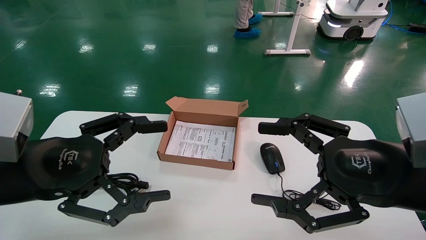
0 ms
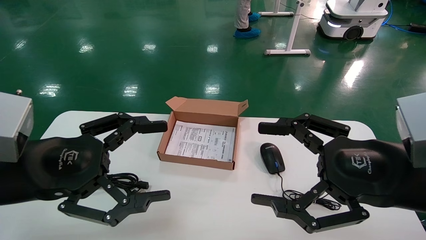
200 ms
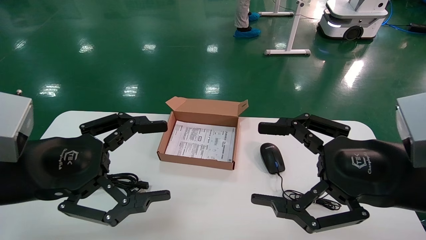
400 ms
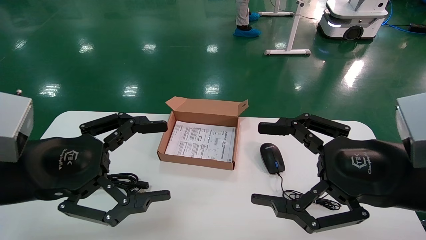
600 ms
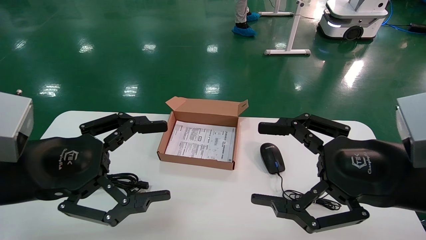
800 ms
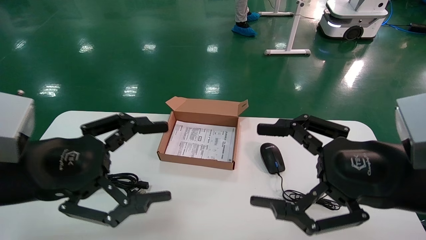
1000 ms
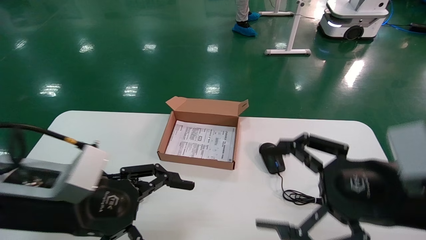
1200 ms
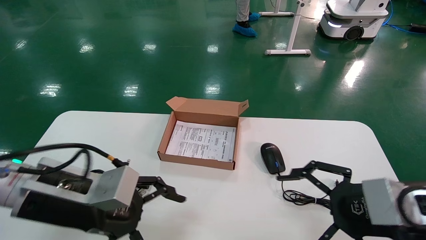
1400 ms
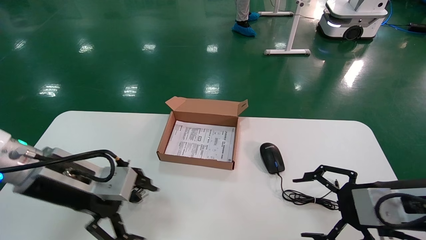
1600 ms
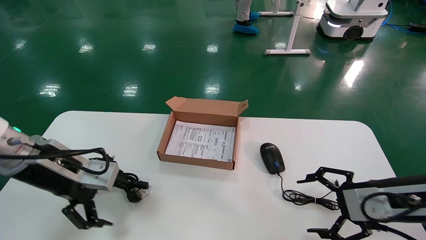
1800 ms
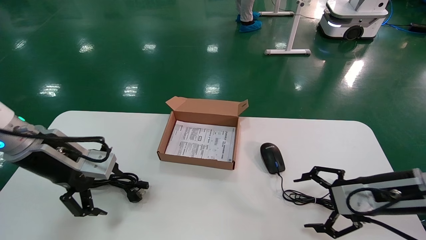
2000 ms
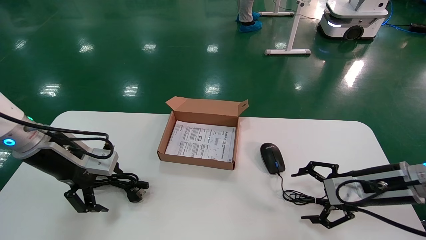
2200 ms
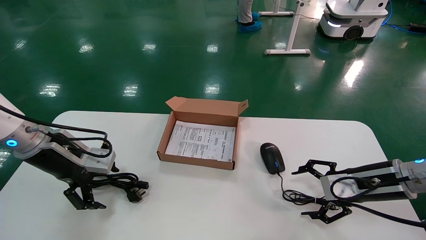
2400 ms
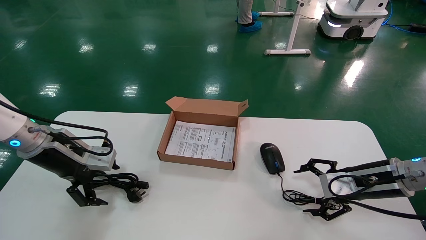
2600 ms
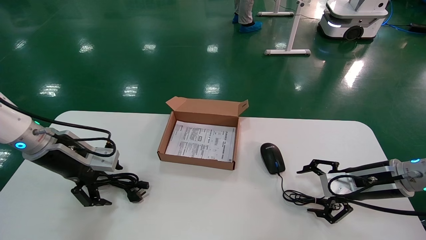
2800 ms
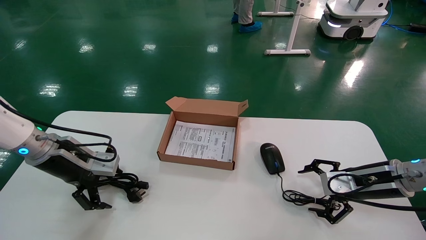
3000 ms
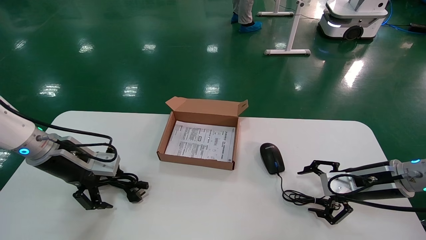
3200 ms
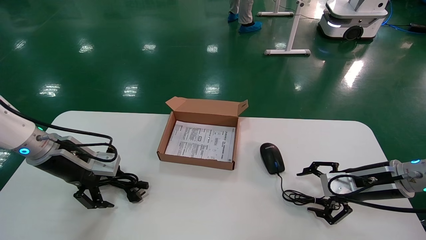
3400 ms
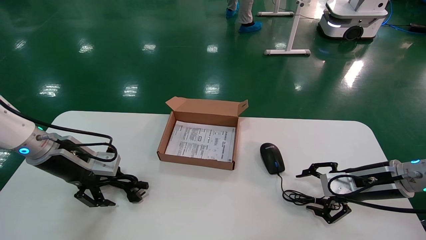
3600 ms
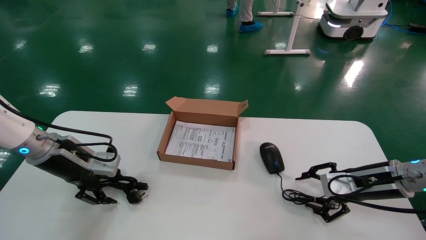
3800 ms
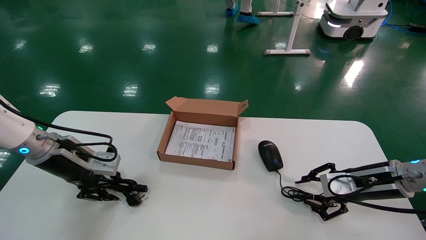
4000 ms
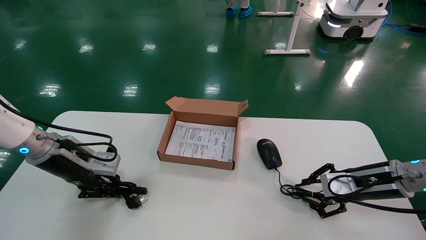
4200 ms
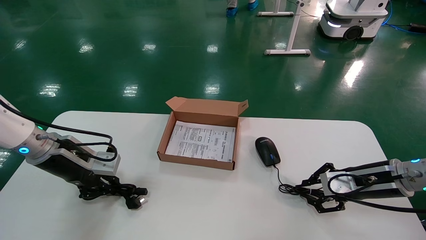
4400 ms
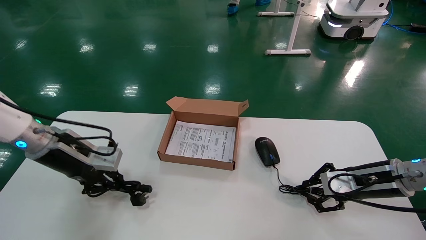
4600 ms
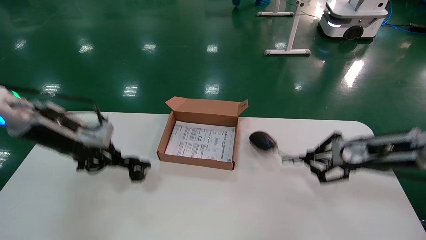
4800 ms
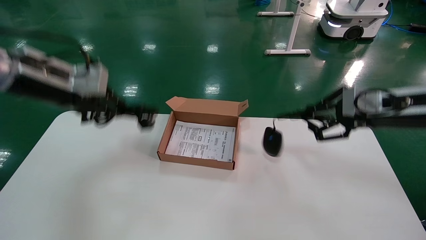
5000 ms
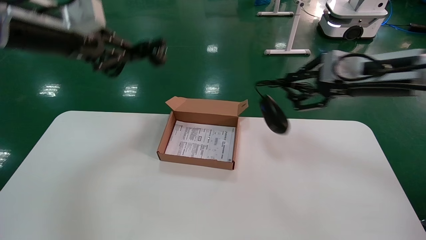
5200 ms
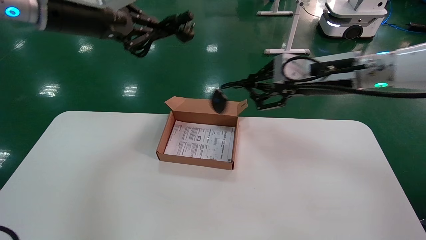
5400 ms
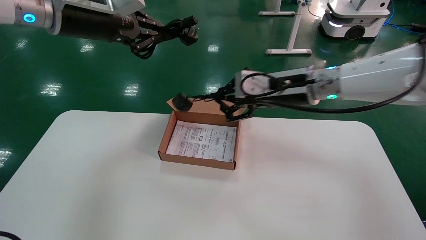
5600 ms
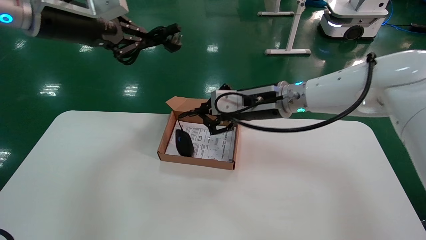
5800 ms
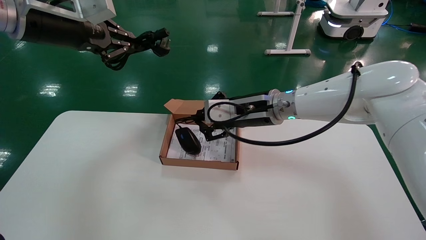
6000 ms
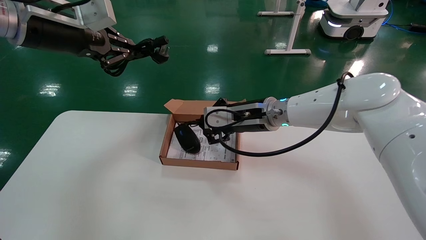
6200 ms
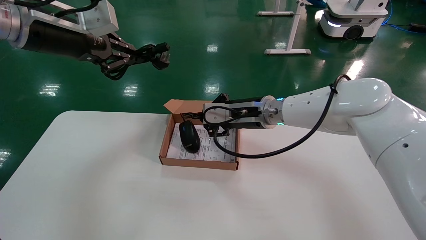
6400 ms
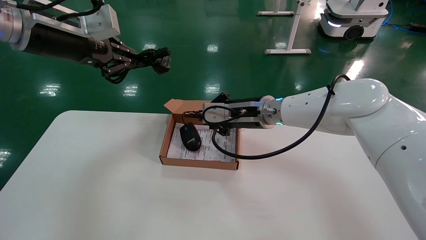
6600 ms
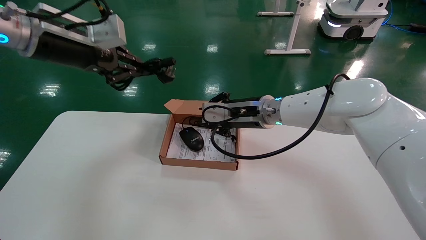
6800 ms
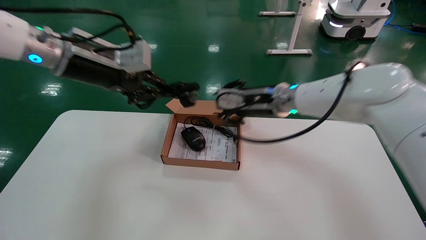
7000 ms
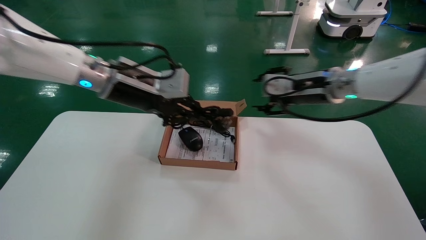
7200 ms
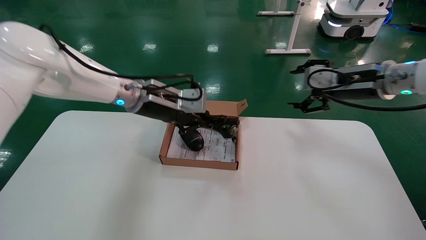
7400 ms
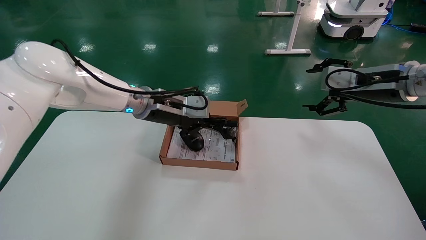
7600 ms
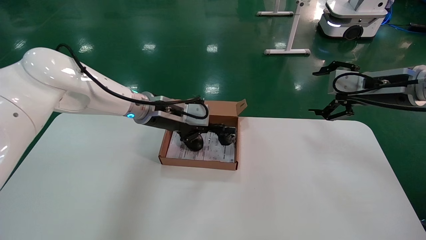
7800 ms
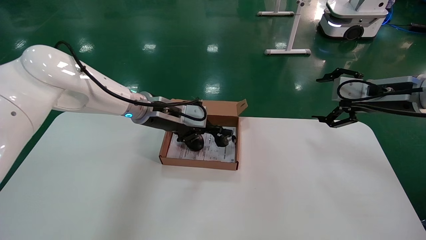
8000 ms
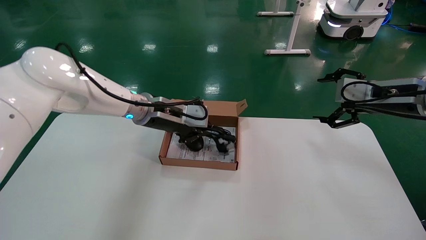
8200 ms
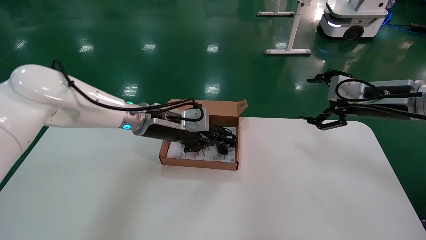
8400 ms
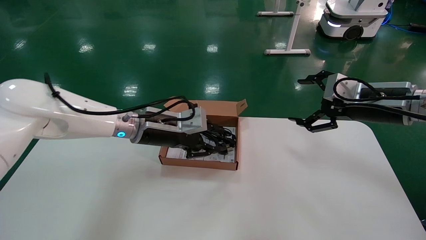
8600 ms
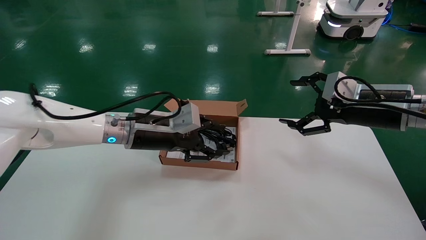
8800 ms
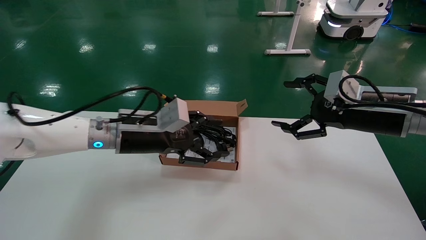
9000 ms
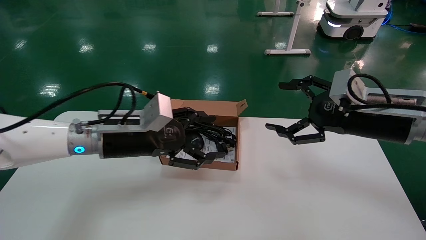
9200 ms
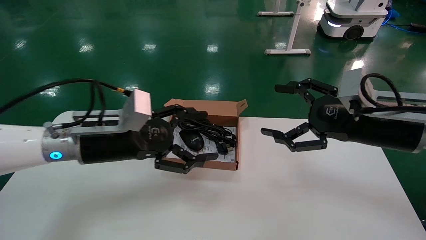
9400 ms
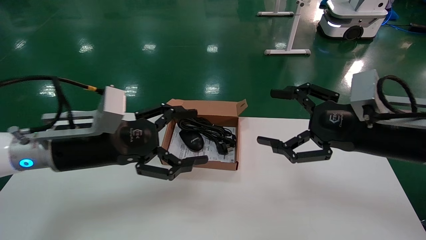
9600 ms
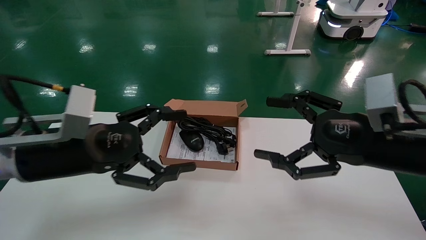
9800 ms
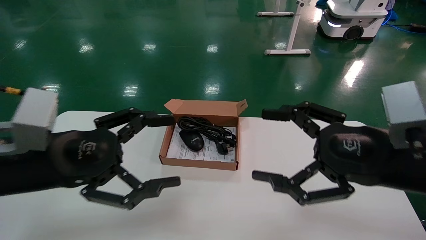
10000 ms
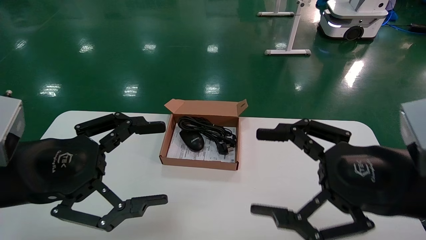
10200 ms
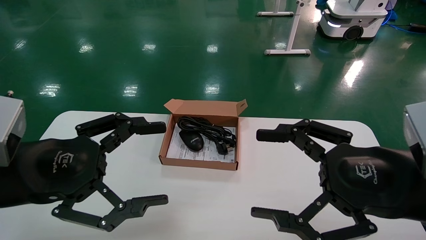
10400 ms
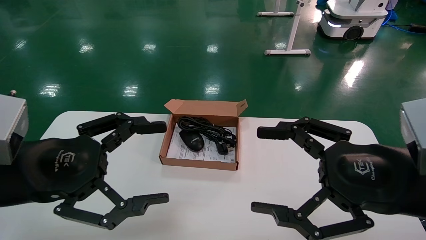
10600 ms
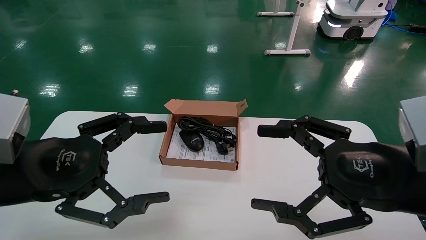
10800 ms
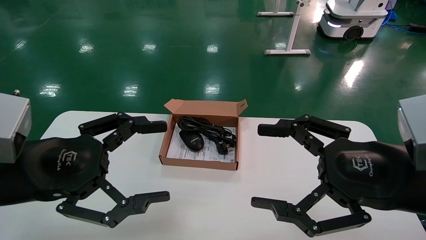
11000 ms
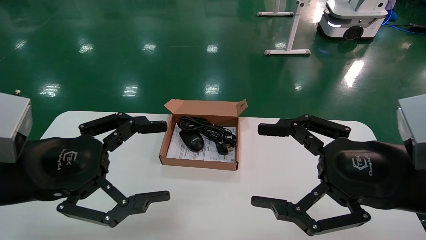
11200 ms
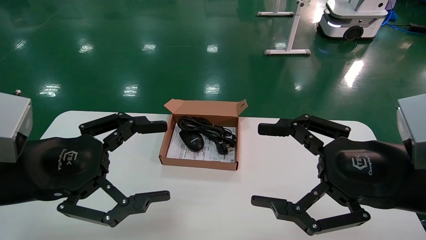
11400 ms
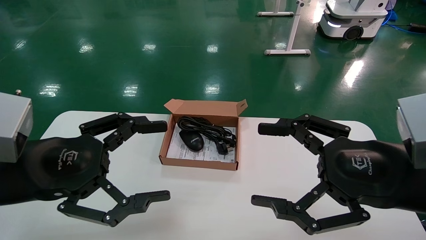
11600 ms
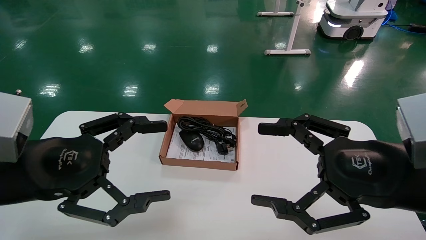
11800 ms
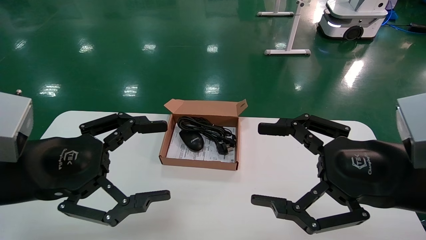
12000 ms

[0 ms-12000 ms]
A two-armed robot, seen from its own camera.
Step, 1200 ms to 4600 ms: Grab and lift both the mouse and power cord from the accessory packaging area at the same time.
Step, 4800 ms to 9000 ms: Place the mouse and power cord into the box.
0 ms to 1600 ms: The right gripper heads downward, to the right and forward, covering approximately 10 cm. Meanwhile the left gripper heads forward, covering some 10 cm.
1600 ms to 3000 ms: The right gripper goes some 15 cm forward and downward; the left gripper heads forward and to the left, covering about 15 cm.
3000 ms to 4400 ms: The right gripper closes its fingers, while the left gripper closes up.
4400 ms to 6000 ms: The left gripper travels upward by approximately 25 cm; the right gripper travels to the left and upward by roughly 25 cm.
6000 ms to 7600 ms: The left gripper is displaced downward, to the right and forward by roughly 25 cm. Meanwhile the right gripper moves to the right, approximately 20 cm, and opens its fingers.
7600 ms to 9000 ms: The grippers both shift backward by some 5 cm. The left gripper opens up.
9000 ms to 10400 ms: The left gripper goes some 20 cm backward and to the left, and opens up; the right gripper goes about 15 cm backward.
10400 ms to 12000 ms: Both grippers stay about where they are.

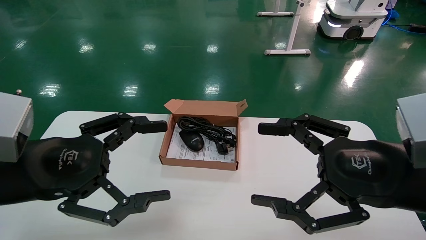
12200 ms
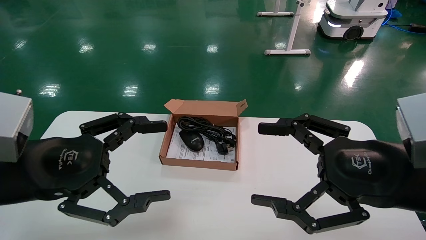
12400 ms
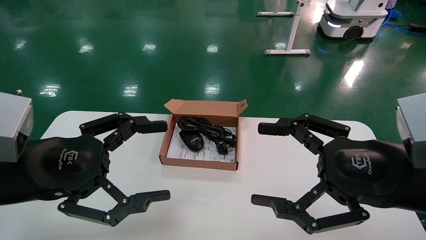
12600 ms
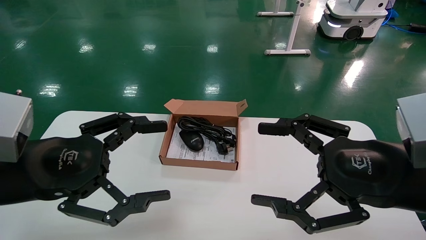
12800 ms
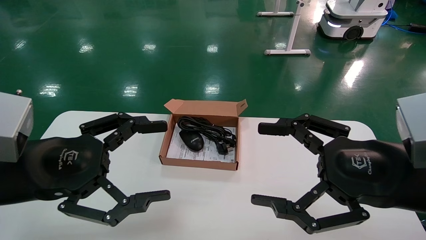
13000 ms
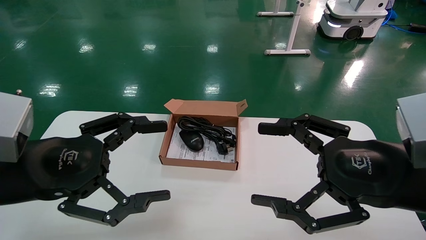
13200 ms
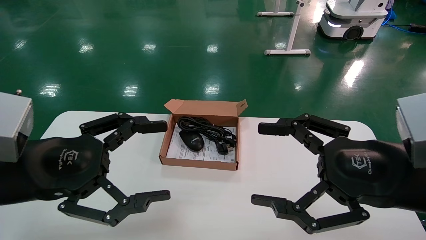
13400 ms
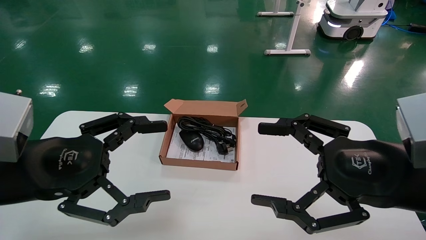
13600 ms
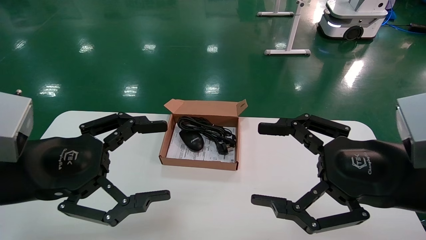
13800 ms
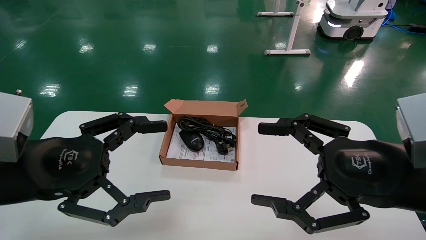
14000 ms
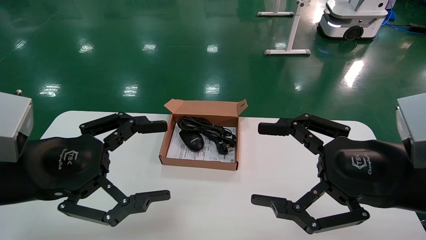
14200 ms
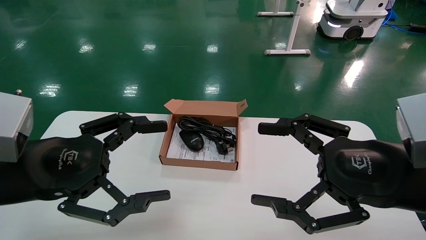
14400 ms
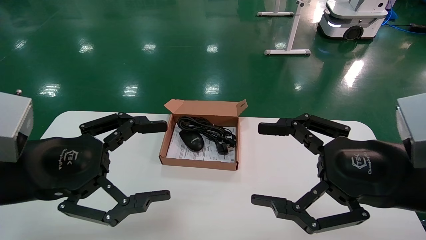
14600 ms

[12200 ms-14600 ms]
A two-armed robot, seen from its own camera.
12200 ms to 14600 ms: Both grippers stay put.
